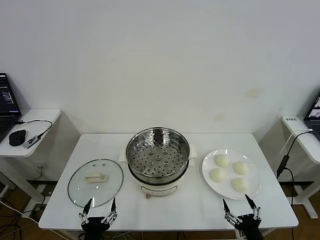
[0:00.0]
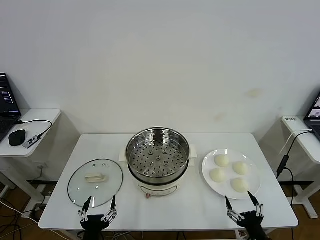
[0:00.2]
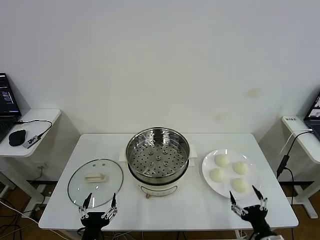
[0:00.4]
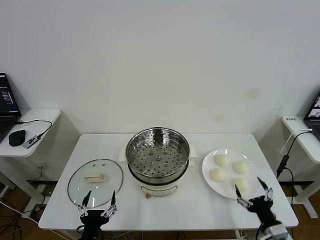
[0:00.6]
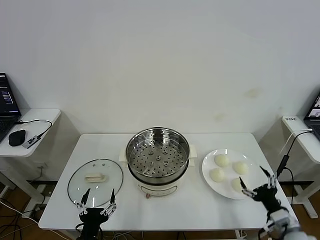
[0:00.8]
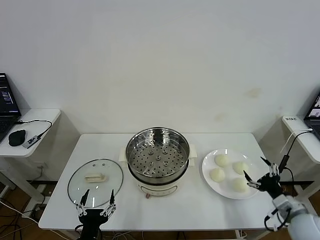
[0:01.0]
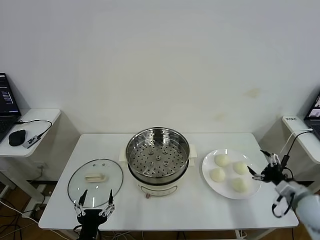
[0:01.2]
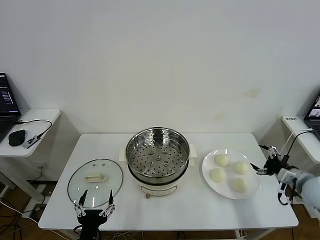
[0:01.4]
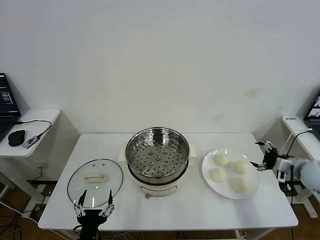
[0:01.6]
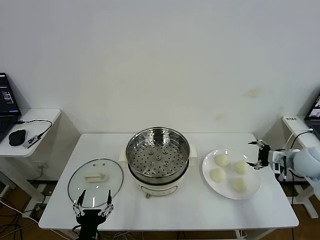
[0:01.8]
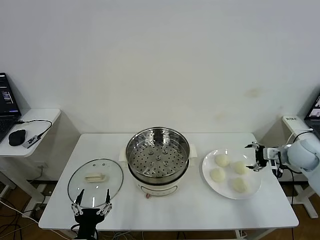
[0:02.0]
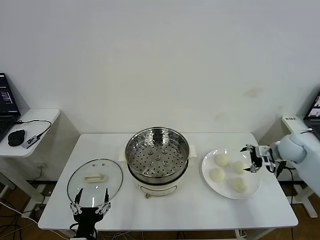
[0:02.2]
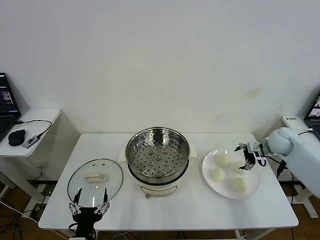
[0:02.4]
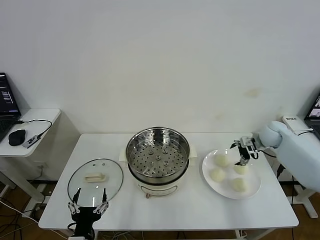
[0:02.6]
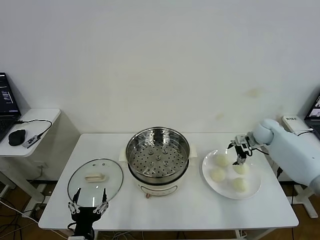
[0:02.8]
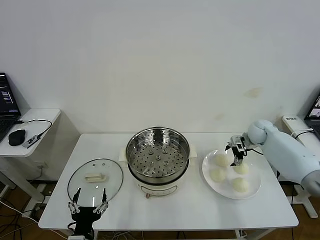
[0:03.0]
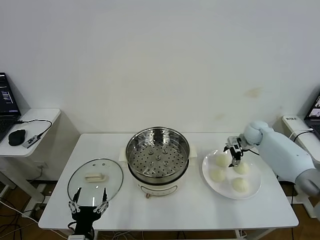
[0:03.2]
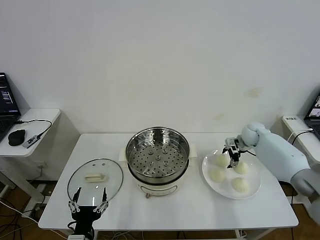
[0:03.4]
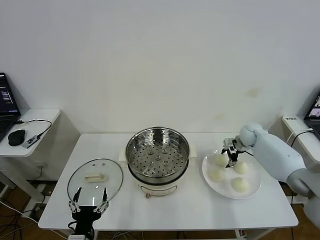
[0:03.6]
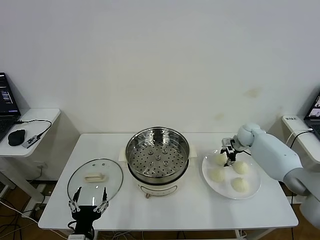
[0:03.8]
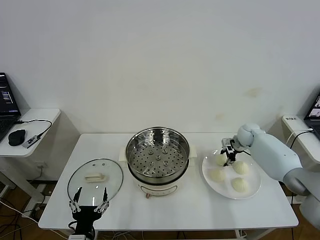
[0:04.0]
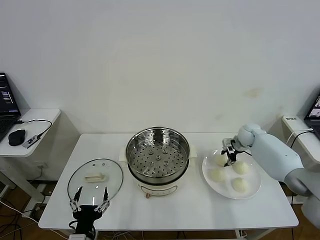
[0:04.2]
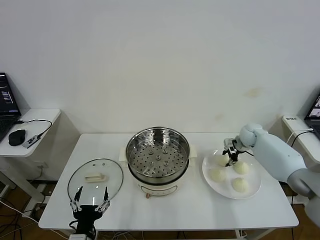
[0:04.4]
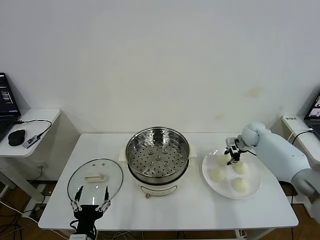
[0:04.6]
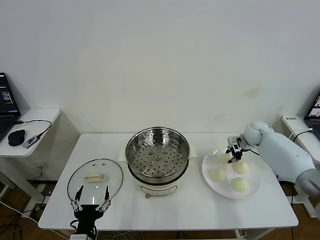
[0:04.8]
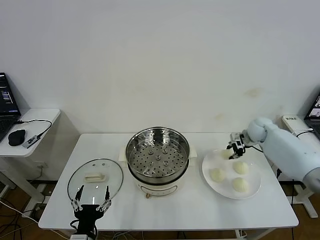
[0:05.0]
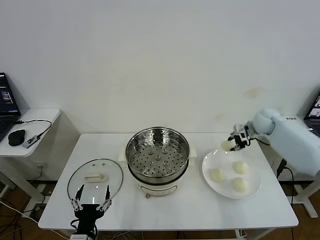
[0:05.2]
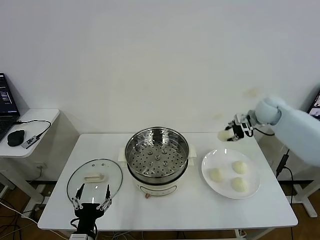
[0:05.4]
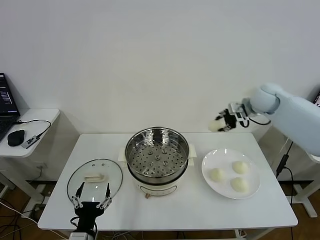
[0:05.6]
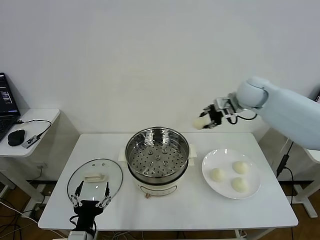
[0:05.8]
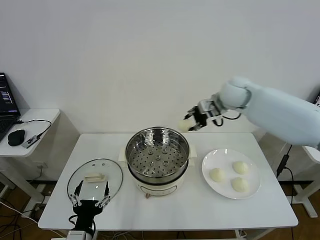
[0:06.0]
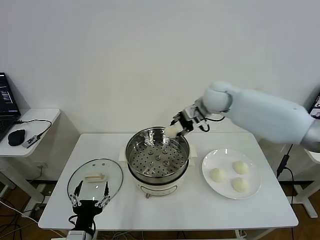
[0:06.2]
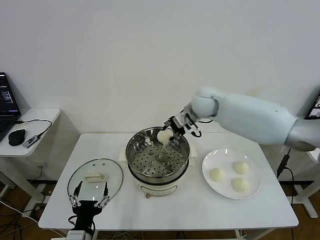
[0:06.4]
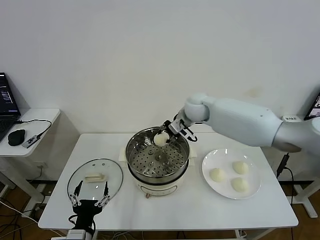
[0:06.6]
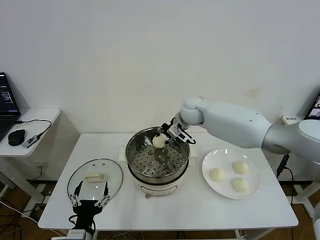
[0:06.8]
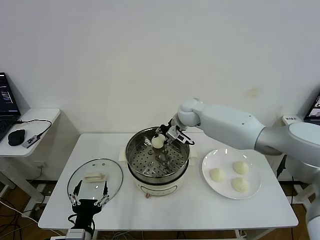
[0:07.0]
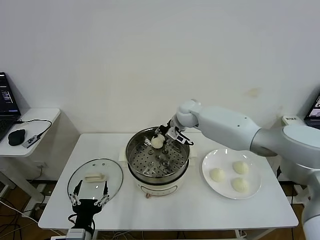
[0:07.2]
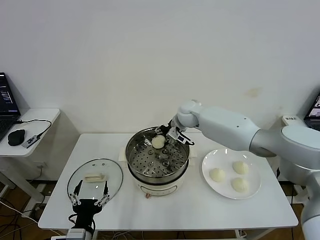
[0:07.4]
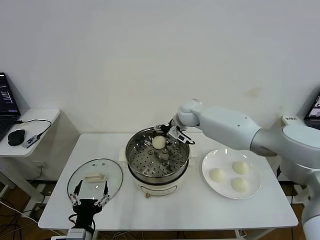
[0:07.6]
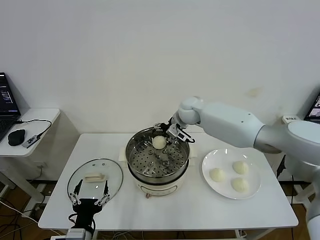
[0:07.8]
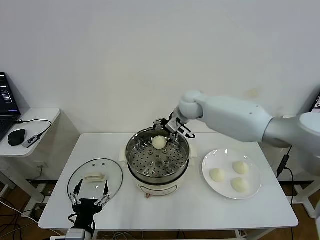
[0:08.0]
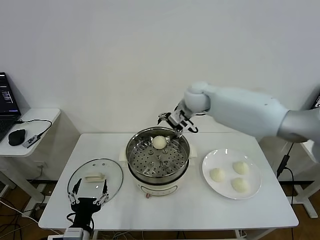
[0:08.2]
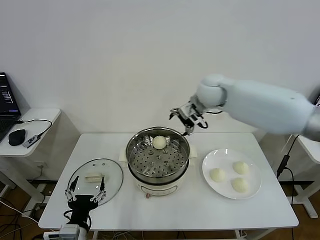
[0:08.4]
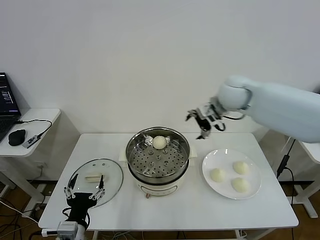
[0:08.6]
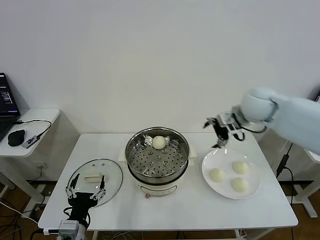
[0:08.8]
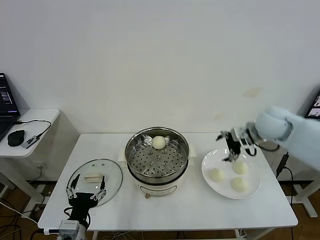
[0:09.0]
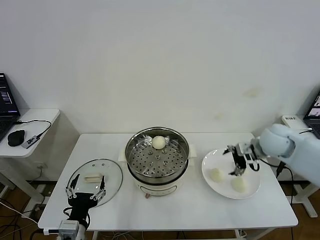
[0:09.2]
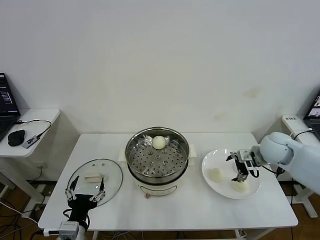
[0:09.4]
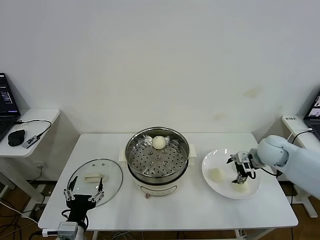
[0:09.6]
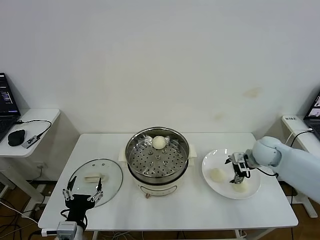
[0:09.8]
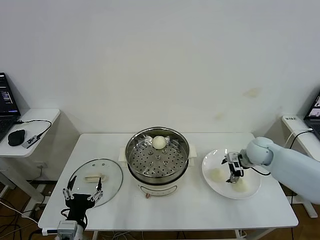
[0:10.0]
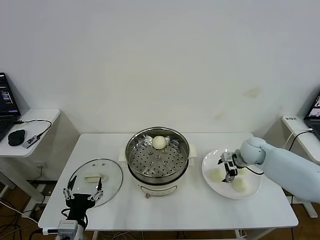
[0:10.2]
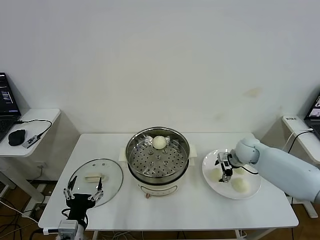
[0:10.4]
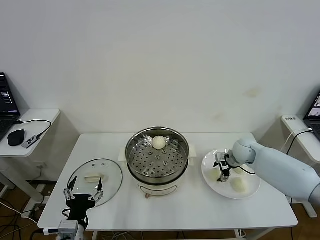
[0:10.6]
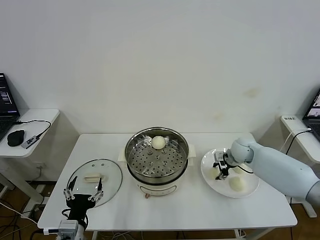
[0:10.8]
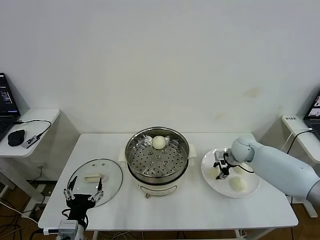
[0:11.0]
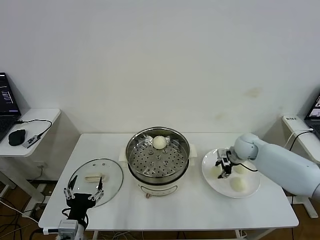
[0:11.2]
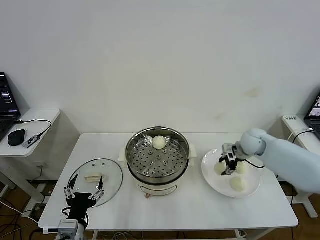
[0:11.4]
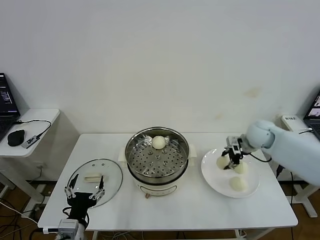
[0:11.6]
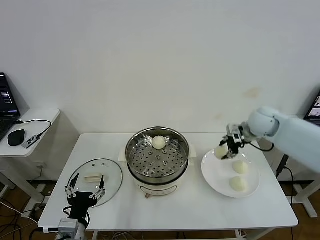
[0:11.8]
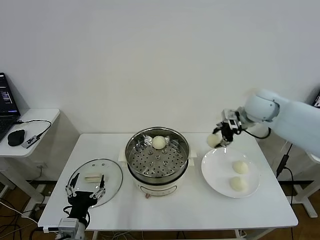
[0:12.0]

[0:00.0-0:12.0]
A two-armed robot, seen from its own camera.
Task of the whole recording: take steamed baozi put them in steamer then cover it.
Step, 0.0 to 4.0 s: Grasp the baozi in the plate with right gripper.
Step, 4.2 to 7.6 s: Place the baozi on the steamer with right gripper.
Step, 7.8 to 11.0 s: Grasp the baozi in the plate with right gripper.
1.6 to 3.0 s: The right gripper goes some 20 cm forward and to the left.
3.0 to 4.4 s: The right gripper closes its fingers.
4.4 to 6.0 s: The right gripper travels upward and to the left by some 25 cm.
6.0 to 7.6 s: The right gripper goes about 15 cm downward and to the left, and opens its fingers.
7.6 to 9.0 s: The right gripper goes about 25 cm to the right and backward.
9.0 to 10.4 s: The right gripper shifts roughly 15 cm downward.
10.4 to 12.0 s: The right gripper shifts some 20 cm upward, and closes its fingers.

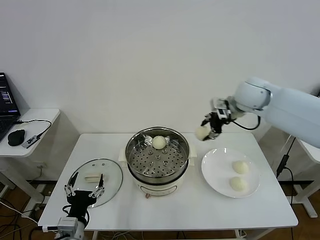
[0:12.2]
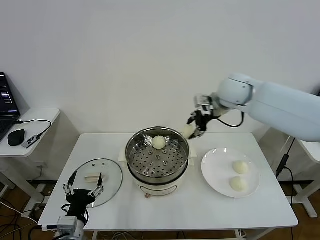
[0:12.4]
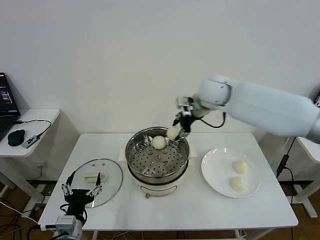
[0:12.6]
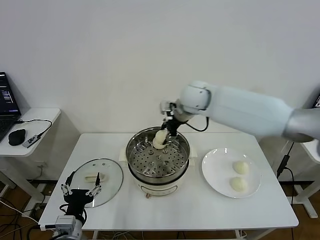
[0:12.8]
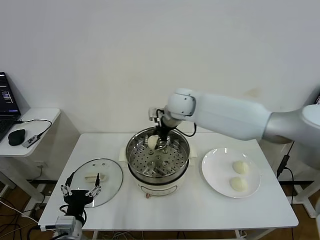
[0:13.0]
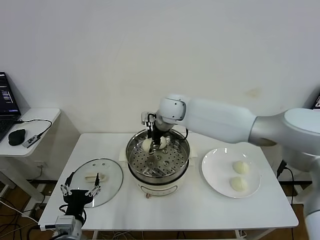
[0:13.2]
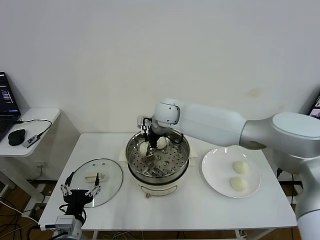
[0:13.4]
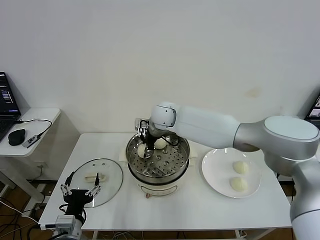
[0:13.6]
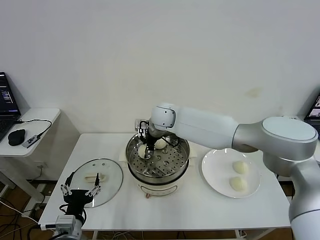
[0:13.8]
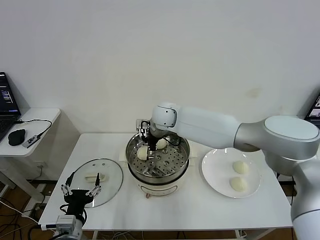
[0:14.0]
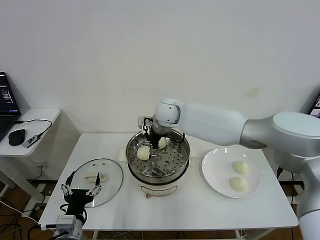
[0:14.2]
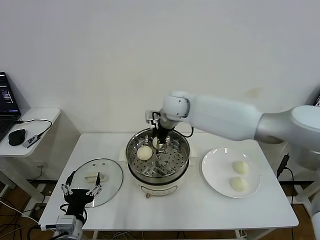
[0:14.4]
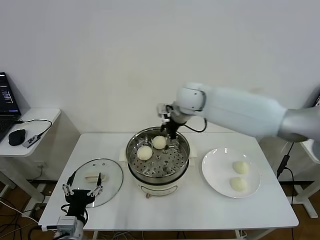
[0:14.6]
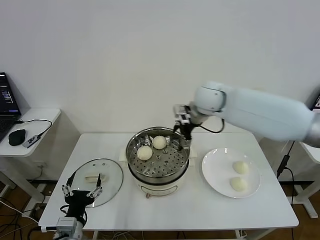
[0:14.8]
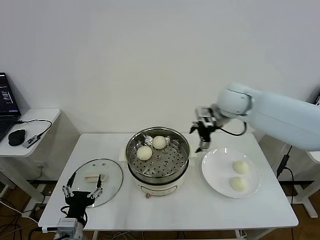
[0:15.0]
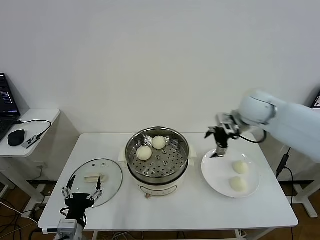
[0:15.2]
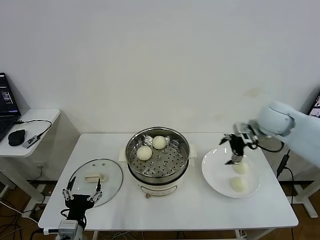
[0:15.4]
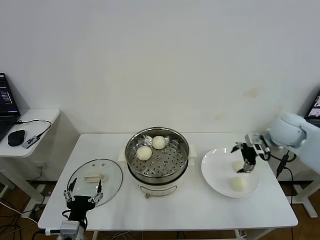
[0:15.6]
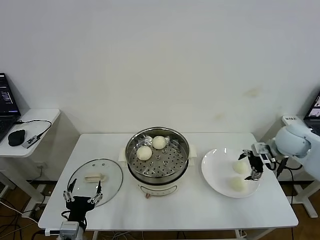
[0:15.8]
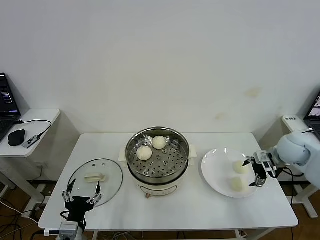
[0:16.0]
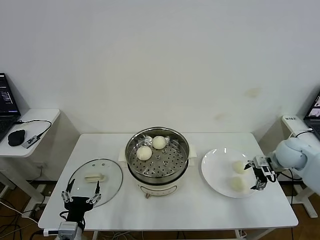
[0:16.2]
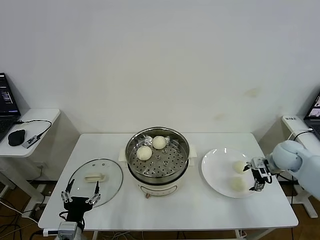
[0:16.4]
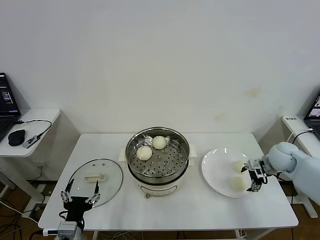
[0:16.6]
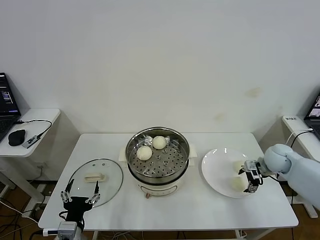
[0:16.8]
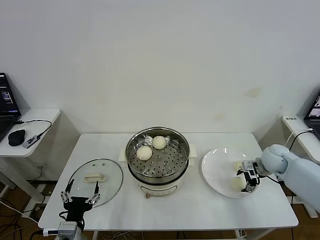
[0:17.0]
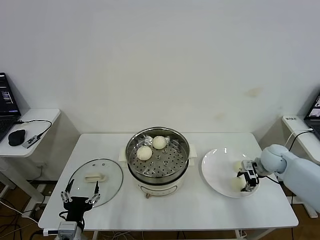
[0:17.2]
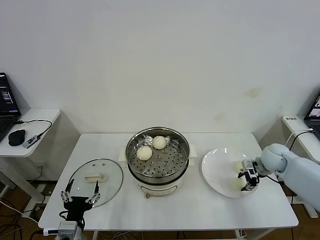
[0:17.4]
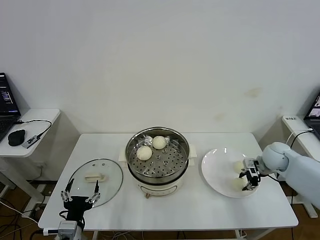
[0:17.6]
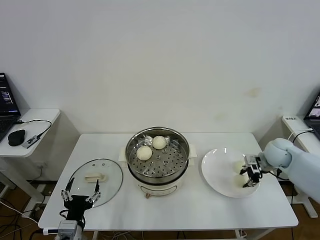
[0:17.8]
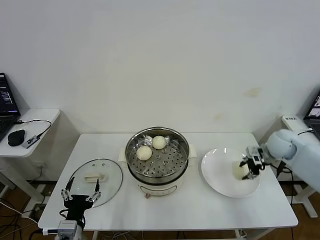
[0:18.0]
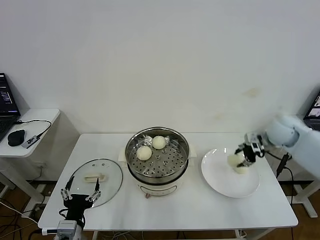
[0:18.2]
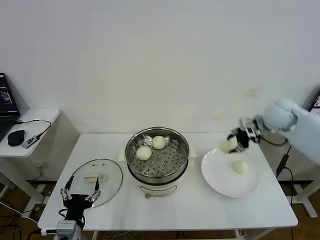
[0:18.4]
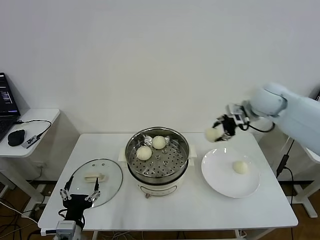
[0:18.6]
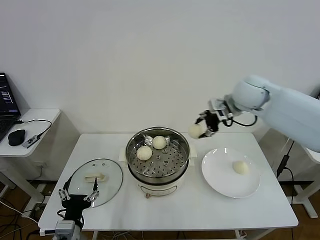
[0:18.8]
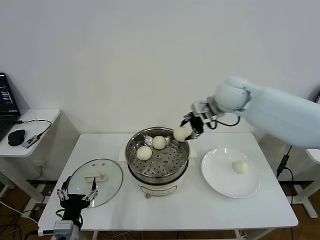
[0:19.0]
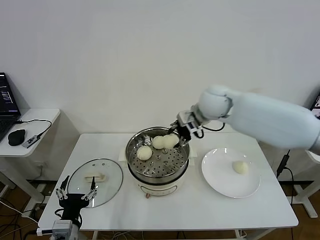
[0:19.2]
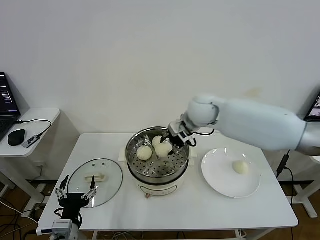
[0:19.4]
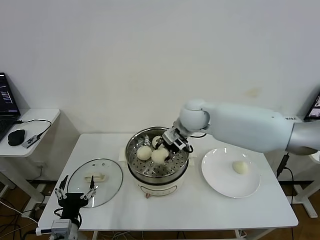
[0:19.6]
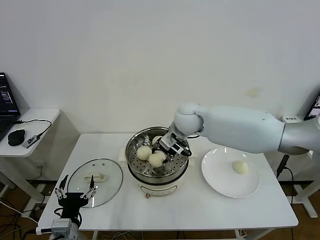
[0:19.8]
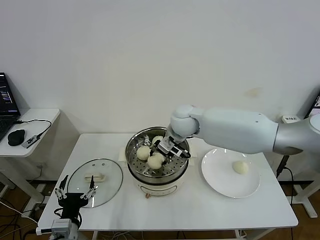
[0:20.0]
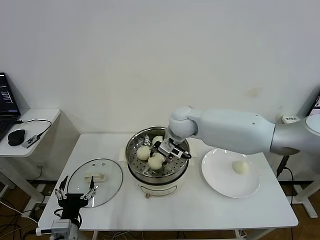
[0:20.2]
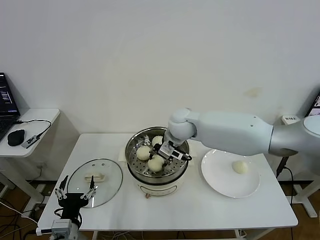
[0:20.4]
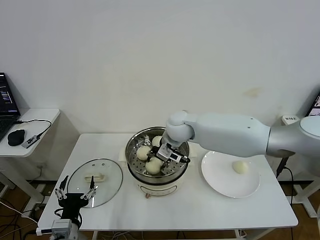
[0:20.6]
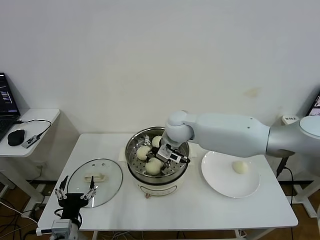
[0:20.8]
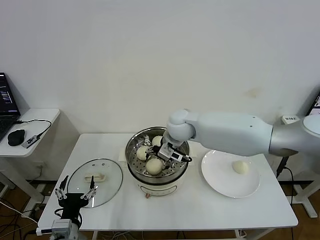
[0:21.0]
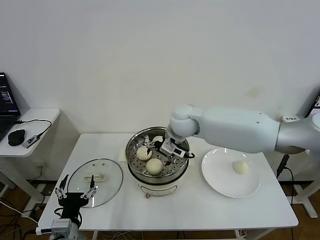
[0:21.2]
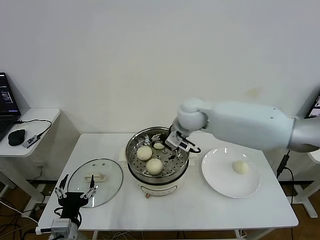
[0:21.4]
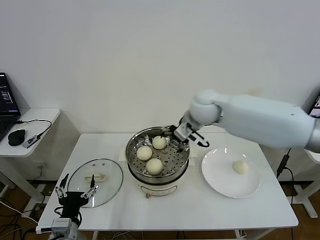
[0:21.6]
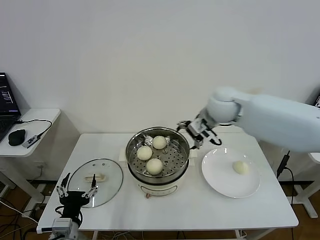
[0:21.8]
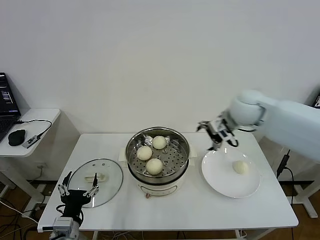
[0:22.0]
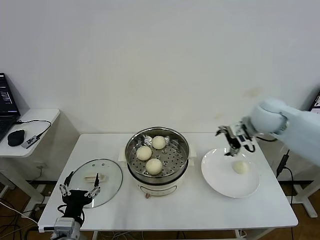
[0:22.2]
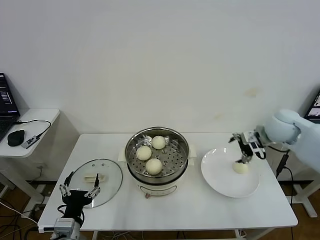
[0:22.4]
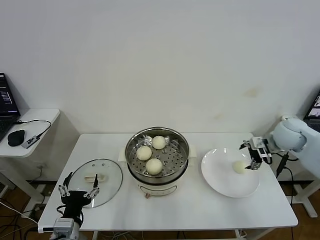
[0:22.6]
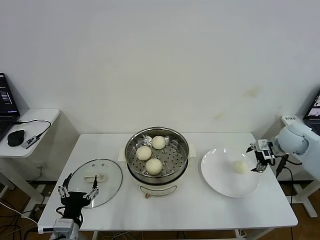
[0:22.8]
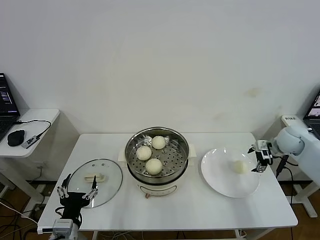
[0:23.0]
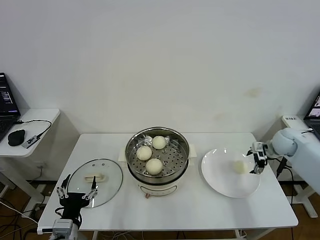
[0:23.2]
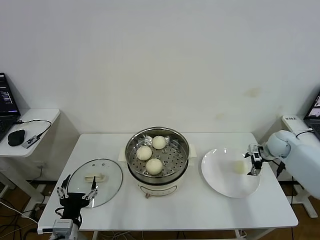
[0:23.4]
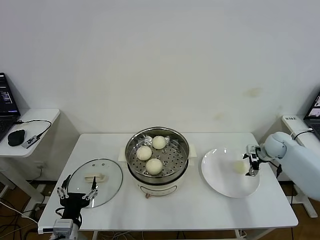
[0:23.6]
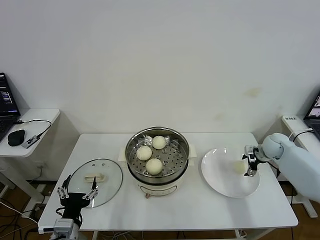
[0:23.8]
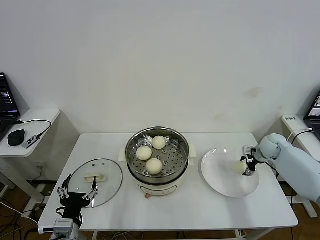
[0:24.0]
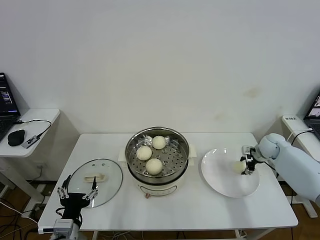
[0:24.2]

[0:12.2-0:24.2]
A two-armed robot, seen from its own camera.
Task of the whole recording: take steamed baozi put them in steamer then cover it.
Step, 12.2 to 14.0 s: Place the baozi on the steamer with right gripper.
Step, 14.2 to 17.4 s: Grasp the baozi in the plate with right gripper.
Step, 17.6 to 21.0 s: Place the baozi on the steamer with right gripper.
12.2 to 13.8 s: The right gripper heads to the left and downward, covering roughly 25 cm.
13.8 to 15.2 s: The right gripper is displaced to the right by some 30 cm, and opens.
15.2 to 16.6 s: The right gripper travels downward and to the right by approximately 20 cm.
16.6 to 18.2 s: The right gripper moves upward, roughly 10 cm, and closes.
18.2 to 19.8 s: The right gripper travels to the left by approximately 30 cm.
19.8 to 21.2 s: The right gripper opens.
21.2 to 22.6 s: The right gripper shifts roughly 35 cm to the right.
22.6 to 24.2 s: The right gripper heads downward and forward, covering some 15 cm, and closes its fingers.
